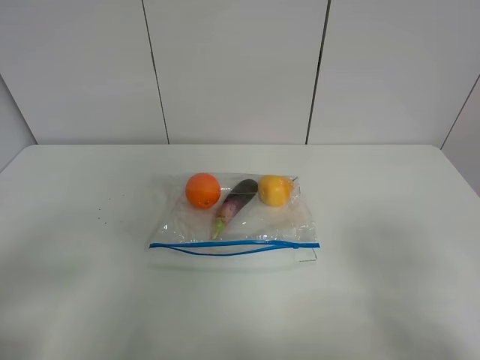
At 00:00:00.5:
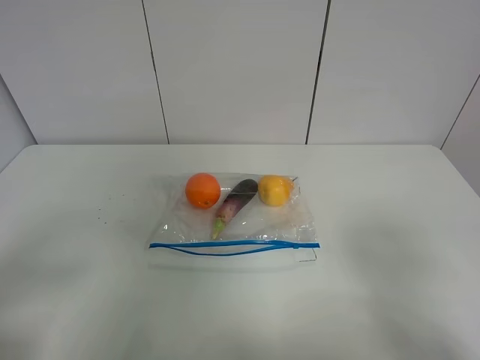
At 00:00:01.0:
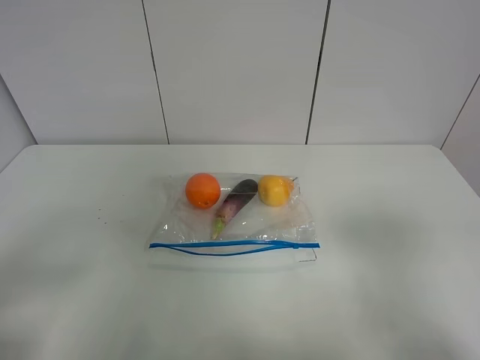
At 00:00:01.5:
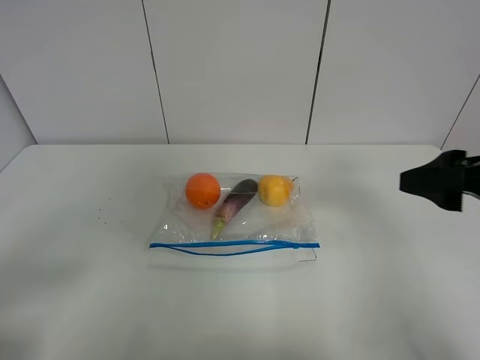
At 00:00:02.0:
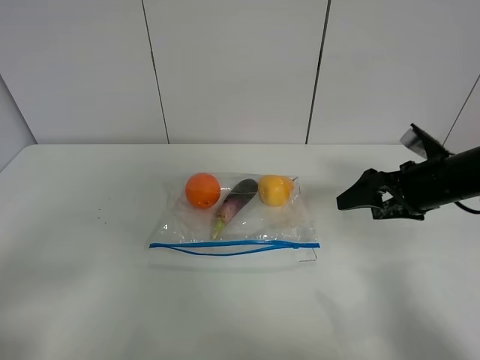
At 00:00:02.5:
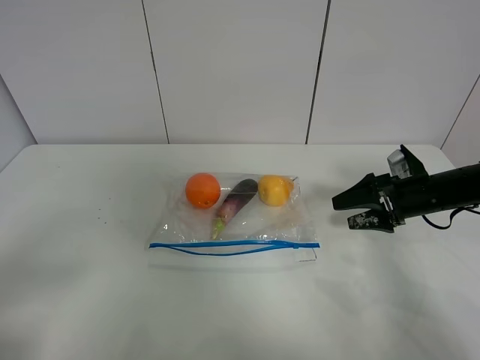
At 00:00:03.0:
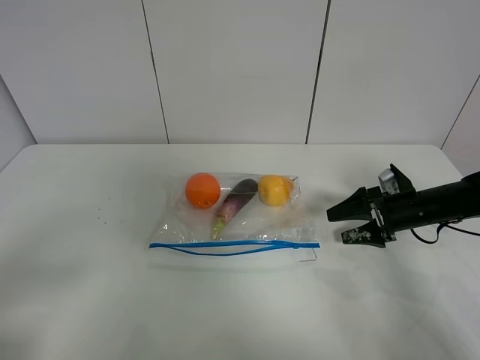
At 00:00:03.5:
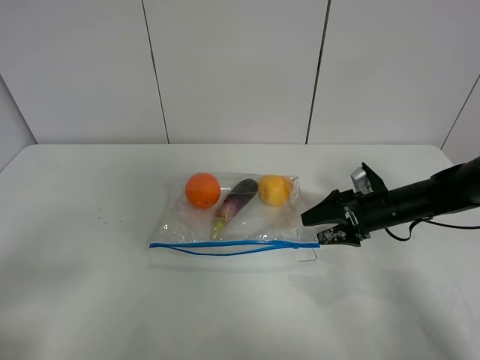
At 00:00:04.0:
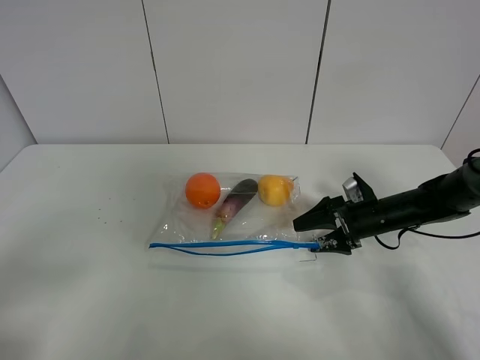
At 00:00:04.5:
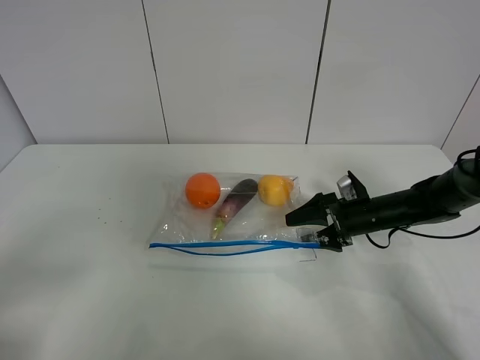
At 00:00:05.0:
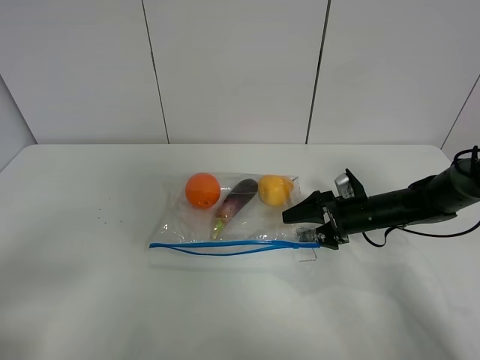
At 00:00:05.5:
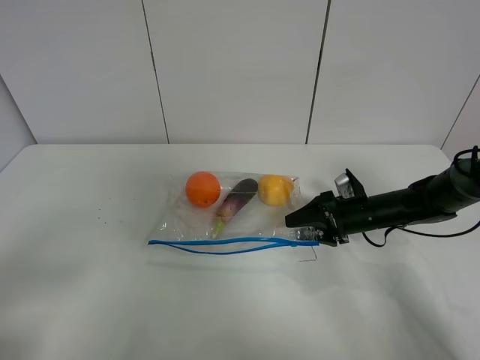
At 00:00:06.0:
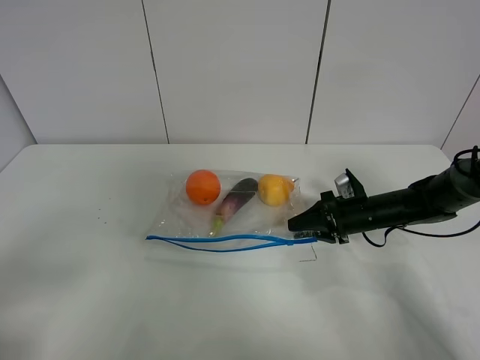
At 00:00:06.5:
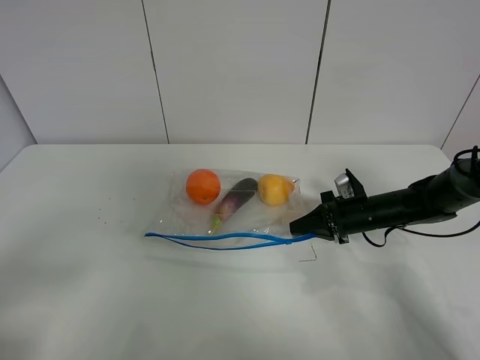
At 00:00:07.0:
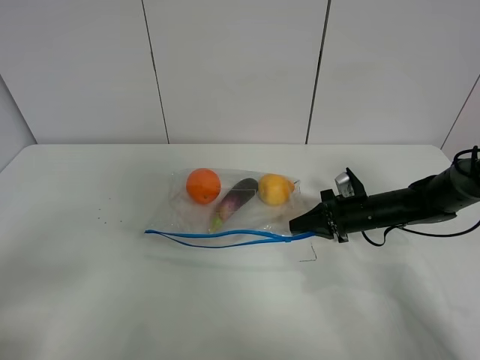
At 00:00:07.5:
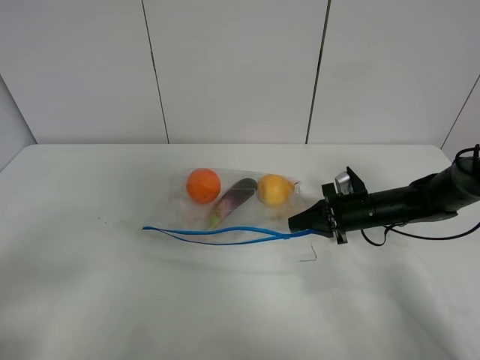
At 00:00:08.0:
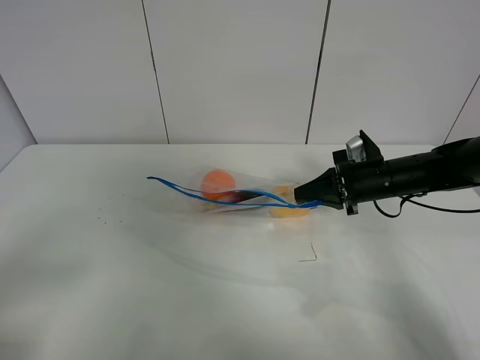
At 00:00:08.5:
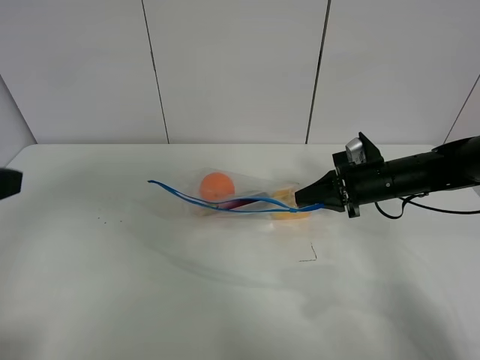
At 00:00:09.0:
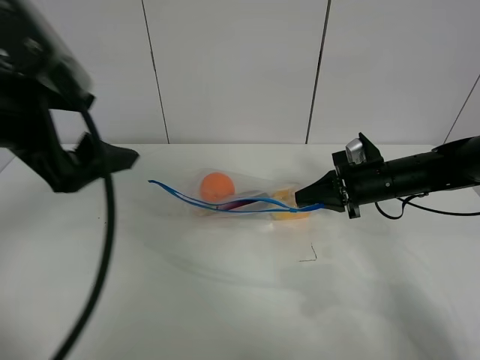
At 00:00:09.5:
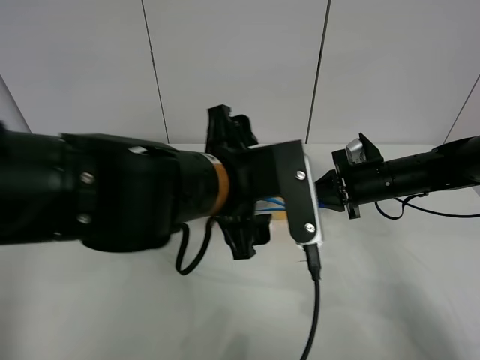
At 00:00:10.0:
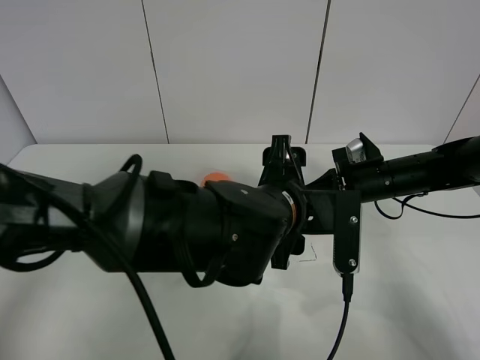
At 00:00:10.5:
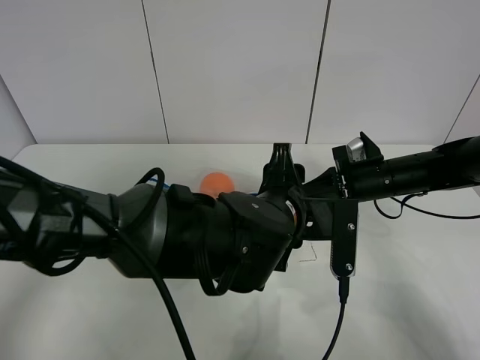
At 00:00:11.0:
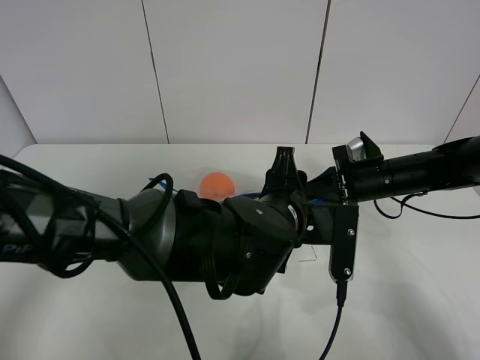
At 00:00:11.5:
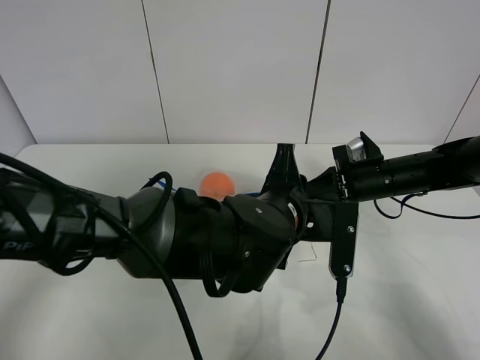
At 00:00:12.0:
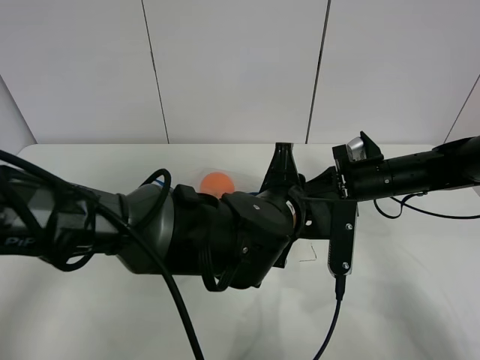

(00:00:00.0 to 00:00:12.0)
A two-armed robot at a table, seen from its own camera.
Step, 00:00:00.0 - 00:00:06.0: Grasp the fruit bag with right gripper.
Step, 00:00:06.5 - 00:00:08.0: Lift the fruit bag with your right gripper.
00:00:00.0 - 00:00:02.0: The right gripper is displaced forward by roughly 30 cm.
00:00:02.0 - 00:00:04.0: The right gripper travels downward by about 10 cm.
00:00:04.0 - 00:00:06.0: The right gripper closes up.
00:00:06.0 - 00:00:08.0: The right gripper heads upward, covering about 10 cm.
00:00:08.0 - 00:00:10.0: The left gripper is displaced to the right and forward by some 40 cm.
00:00:10.0 - 00:00:12.0: The left gripper closes.

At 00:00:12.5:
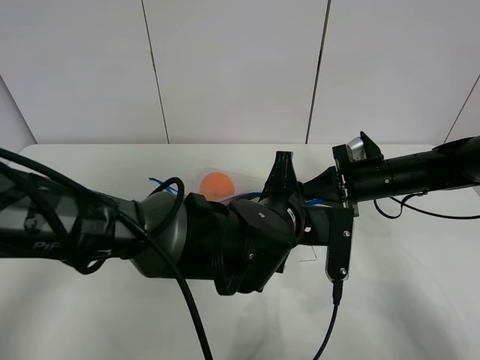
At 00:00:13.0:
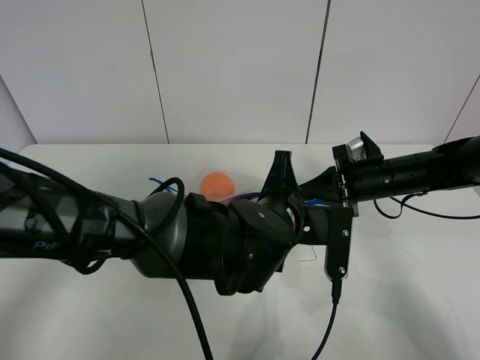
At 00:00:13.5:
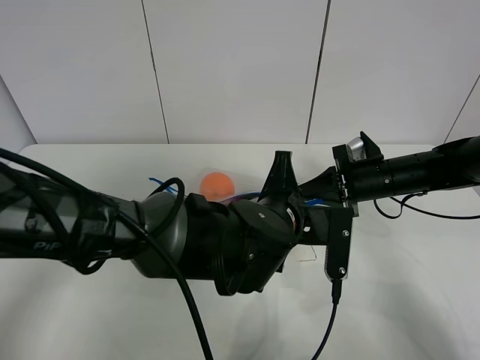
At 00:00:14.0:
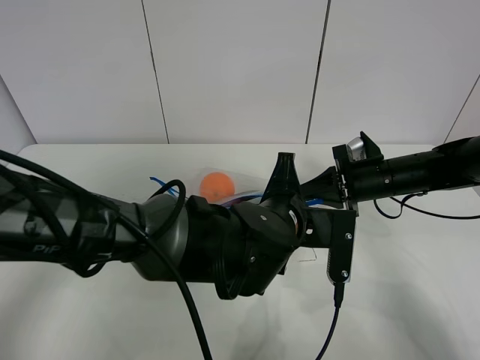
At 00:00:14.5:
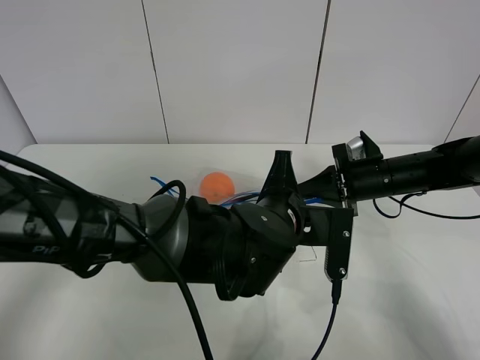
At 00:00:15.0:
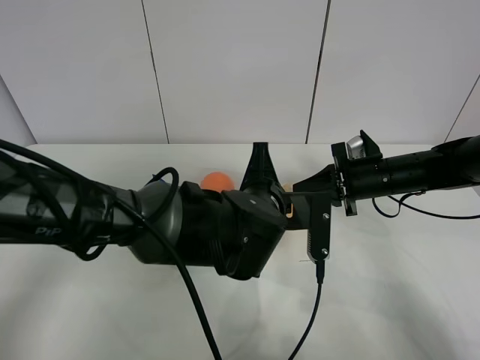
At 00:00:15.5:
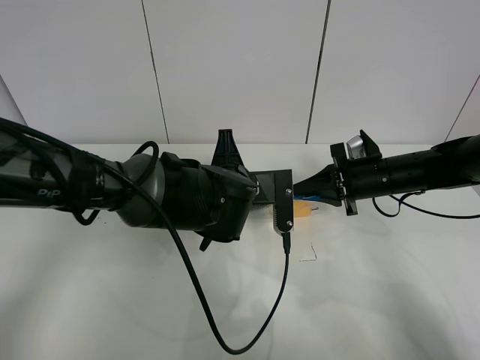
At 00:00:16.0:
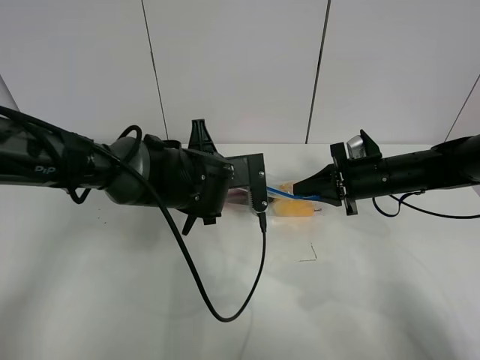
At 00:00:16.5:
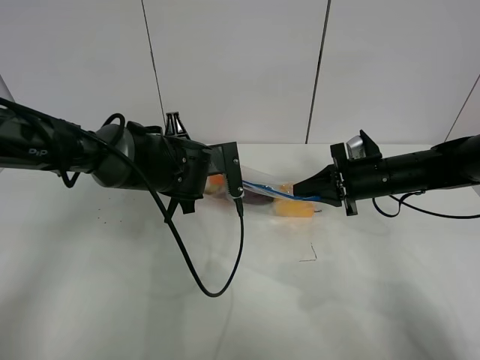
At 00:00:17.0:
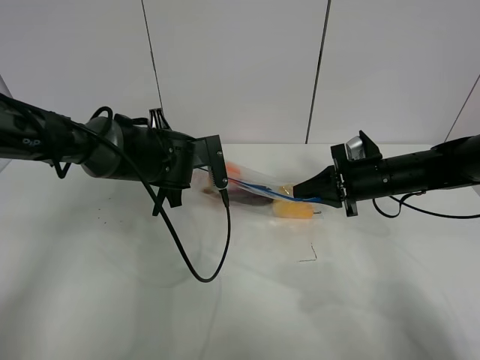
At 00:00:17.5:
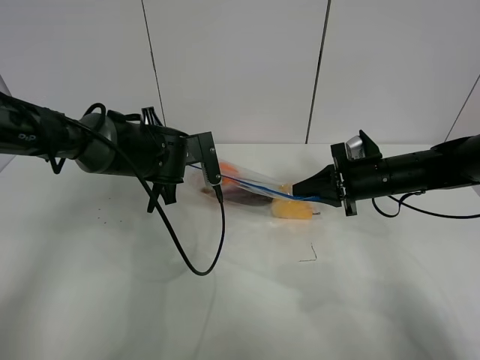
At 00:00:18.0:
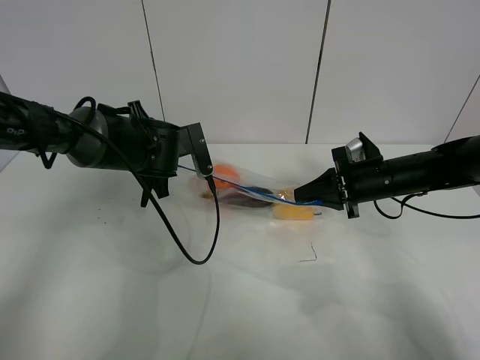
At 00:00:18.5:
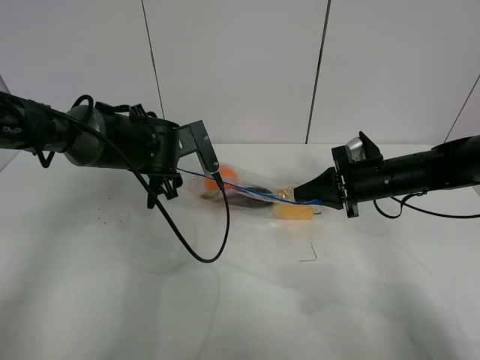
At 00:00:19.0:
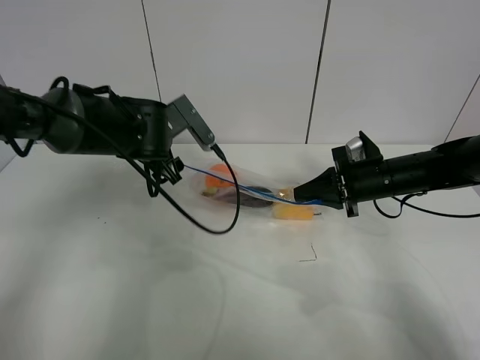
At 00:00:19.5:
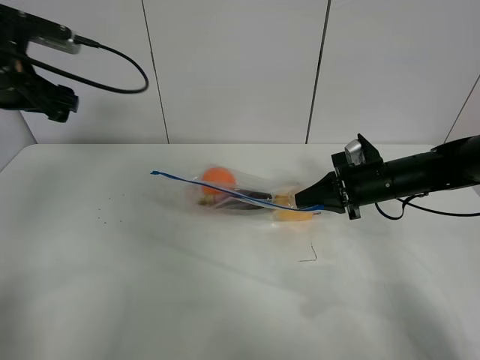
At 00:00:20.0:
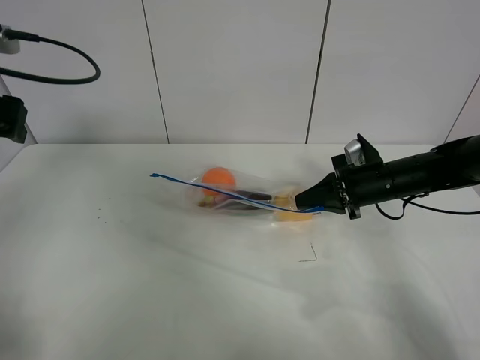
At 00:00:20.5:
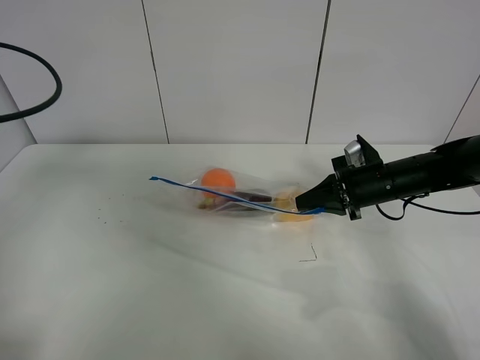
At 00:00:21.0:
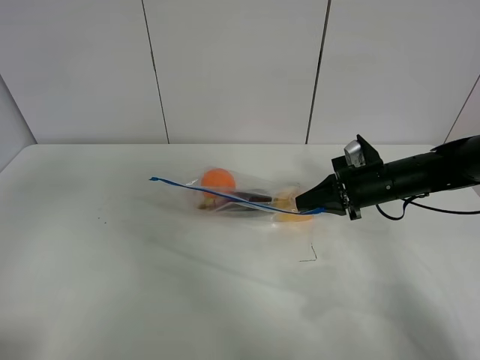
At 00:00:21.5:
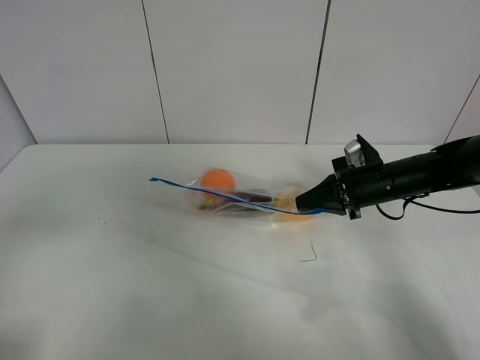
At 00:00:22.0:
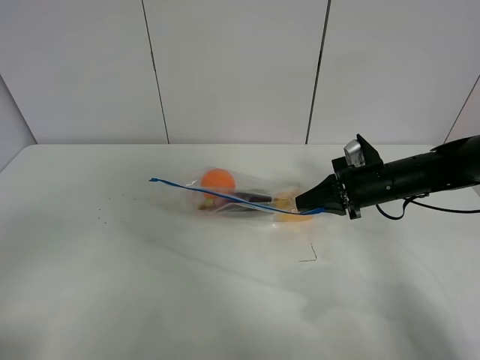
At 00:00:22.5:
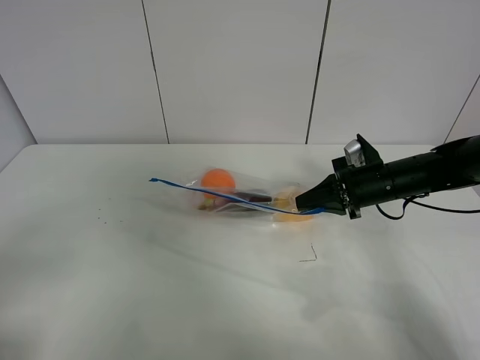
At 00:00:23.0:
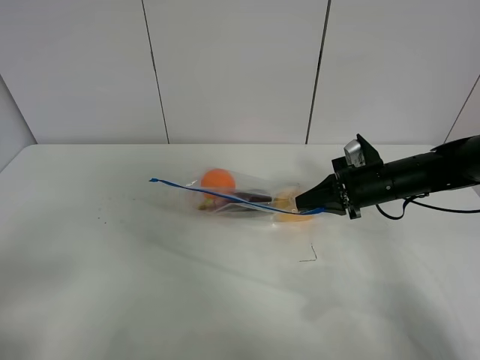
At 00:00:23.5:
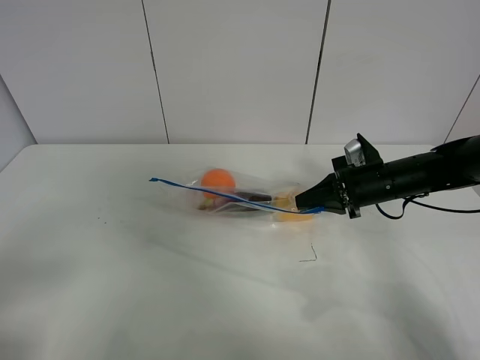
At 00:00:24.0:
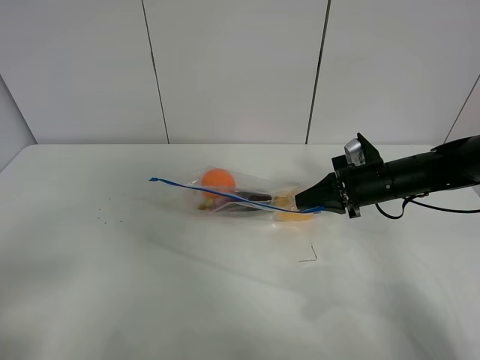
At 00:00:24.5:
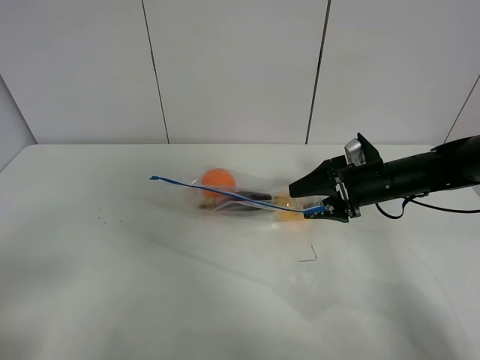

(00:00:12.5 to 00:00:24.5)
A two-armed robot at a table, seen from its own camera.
Step, 00:00:12.5 - 00:00:18.0: Pull the fruit bag with left gripper.
00:00:12.5 - 00:00:14.5: The left gripper closes.
00:00:14.5 - 00:00:16.5: The left gripper goes roughly 15 cm to the left and forward.
00:00:16.5 - 00:00:18.5: The left gripper opens.
00:00:18.5 - 00:00:20.5: The left gripper shifts approximately 30 cm to the left, upward and backward.
00:00:20.5 - 00:00:22.5: The left gripper goes about 20 cm backward.
00:00:22.5 - 00:00:24.5: The right gripper opens its fingers.

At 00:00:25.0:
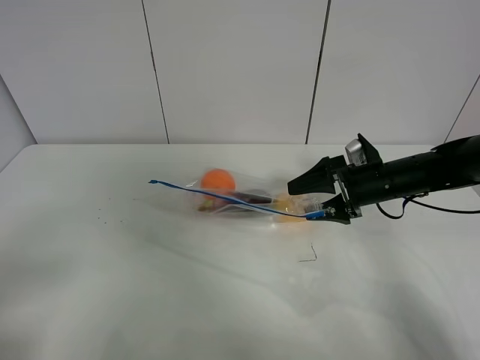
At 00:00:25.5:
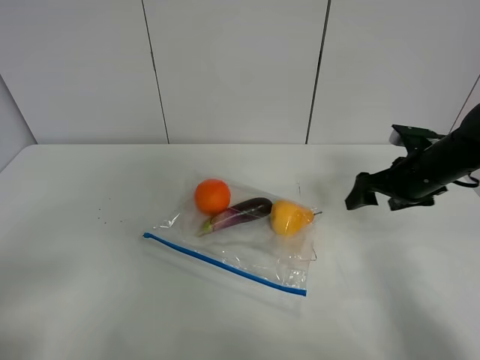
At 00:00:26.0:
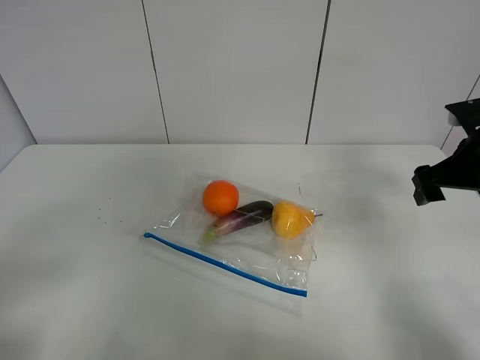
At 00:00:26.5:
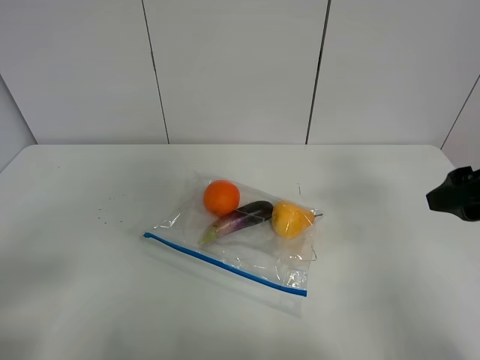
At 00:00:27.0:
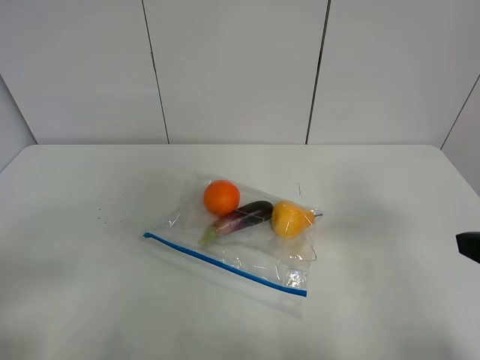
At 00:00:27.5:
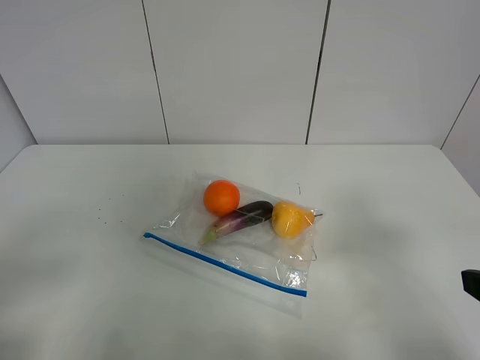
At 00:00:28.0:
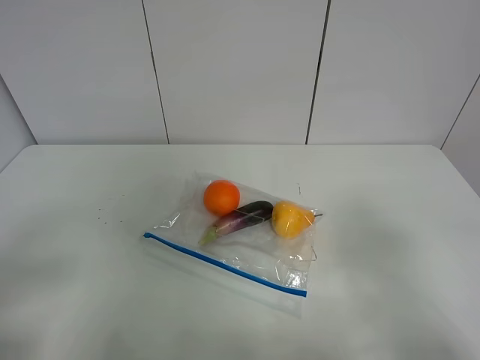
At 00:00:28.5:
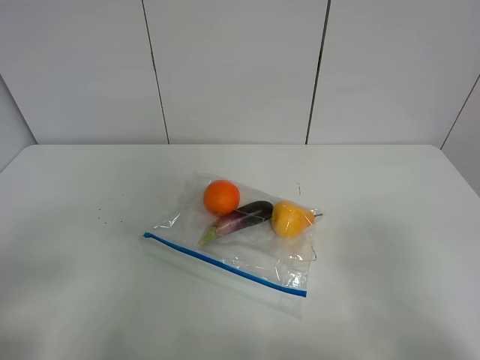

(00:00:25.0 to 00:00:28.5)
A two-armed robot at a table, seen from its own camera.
00:00:25.0 - 00:00:27.0: The right gripper goes about 30 cm backward and upward.
